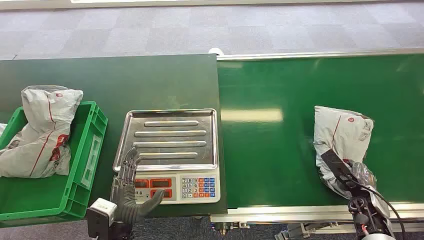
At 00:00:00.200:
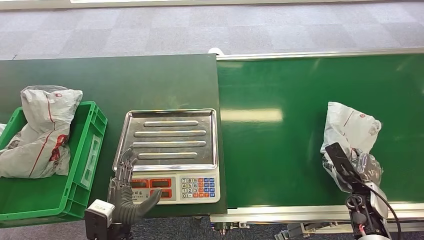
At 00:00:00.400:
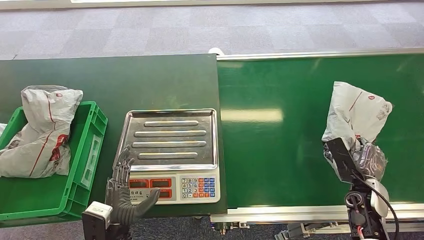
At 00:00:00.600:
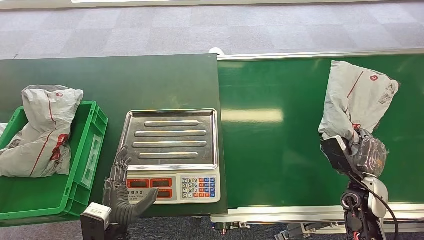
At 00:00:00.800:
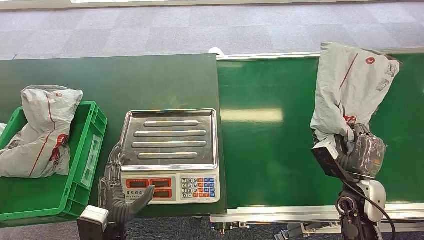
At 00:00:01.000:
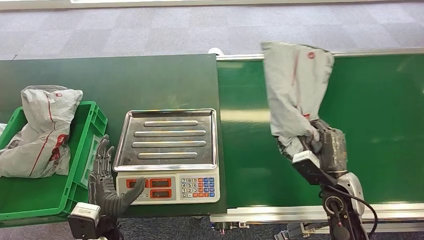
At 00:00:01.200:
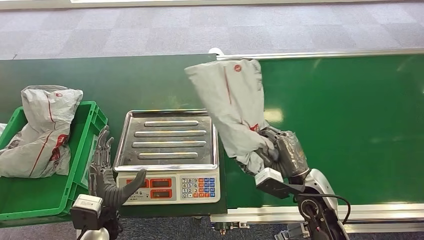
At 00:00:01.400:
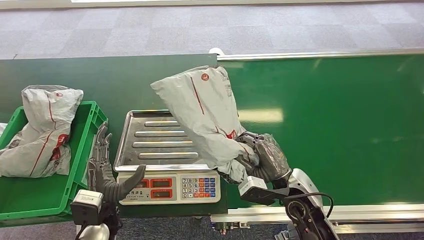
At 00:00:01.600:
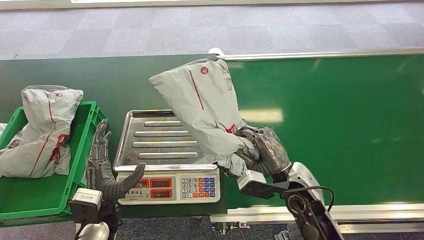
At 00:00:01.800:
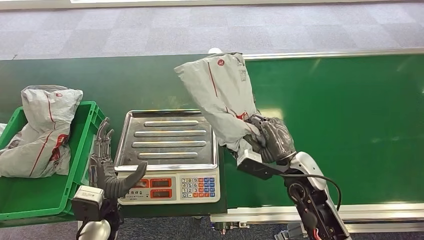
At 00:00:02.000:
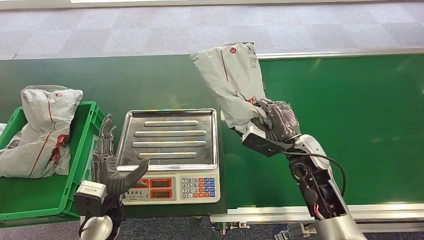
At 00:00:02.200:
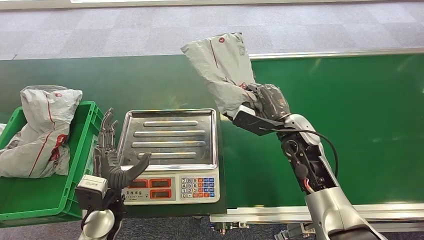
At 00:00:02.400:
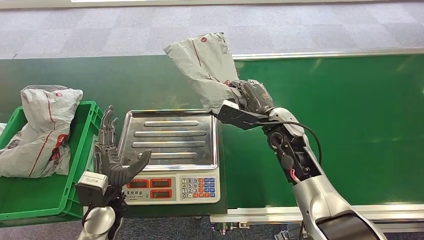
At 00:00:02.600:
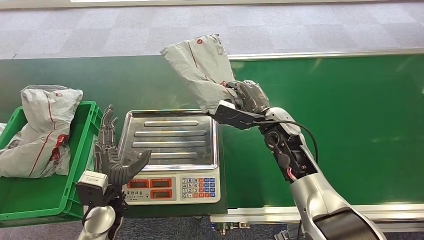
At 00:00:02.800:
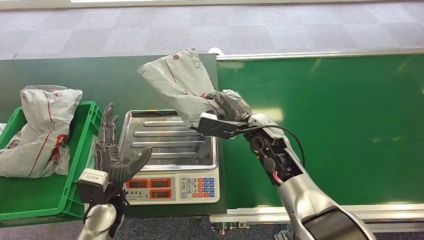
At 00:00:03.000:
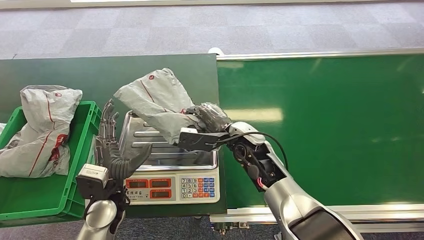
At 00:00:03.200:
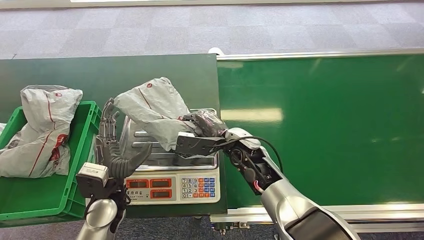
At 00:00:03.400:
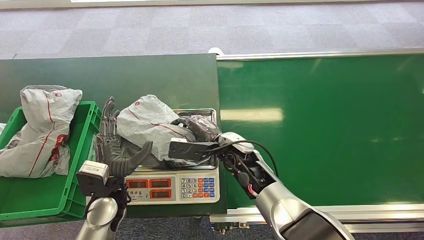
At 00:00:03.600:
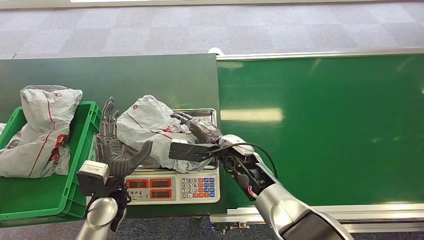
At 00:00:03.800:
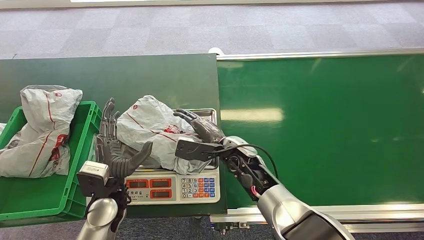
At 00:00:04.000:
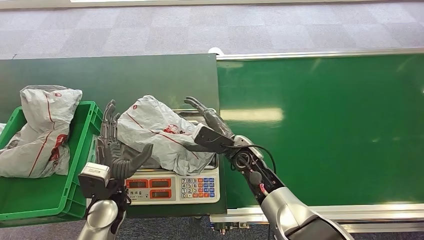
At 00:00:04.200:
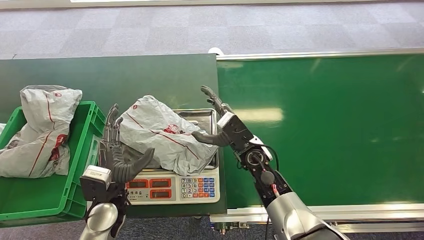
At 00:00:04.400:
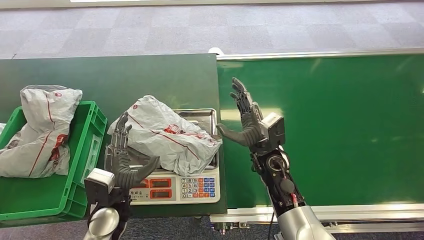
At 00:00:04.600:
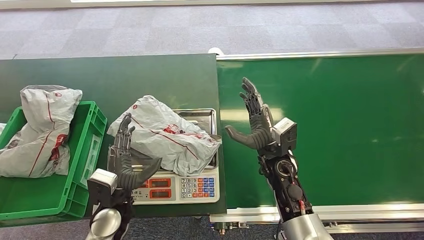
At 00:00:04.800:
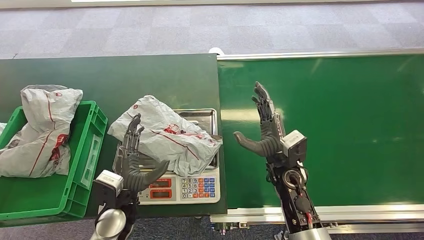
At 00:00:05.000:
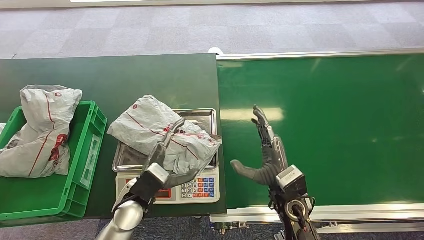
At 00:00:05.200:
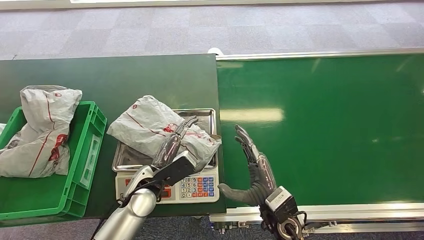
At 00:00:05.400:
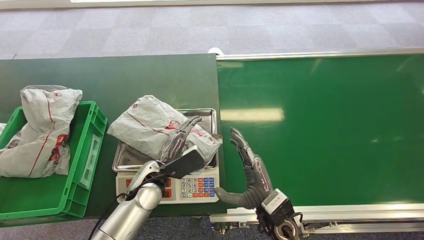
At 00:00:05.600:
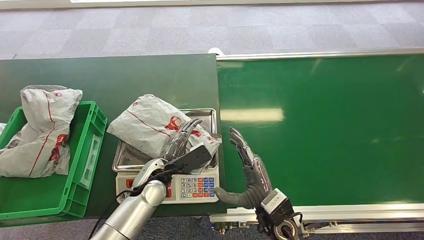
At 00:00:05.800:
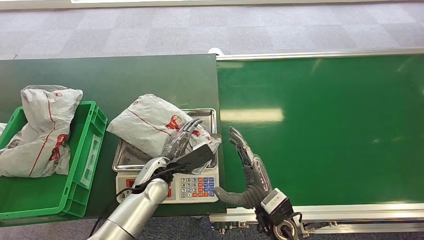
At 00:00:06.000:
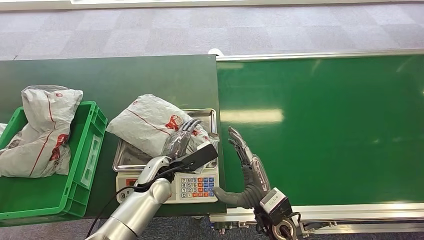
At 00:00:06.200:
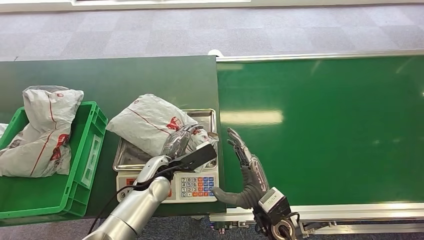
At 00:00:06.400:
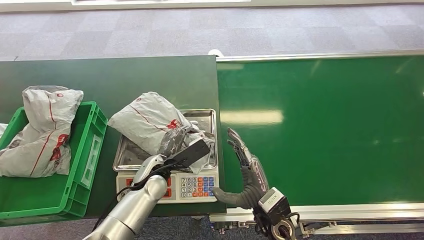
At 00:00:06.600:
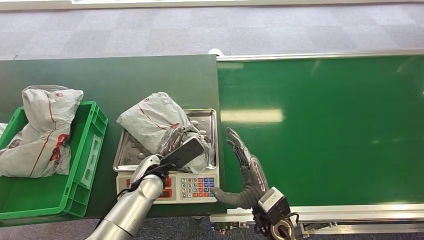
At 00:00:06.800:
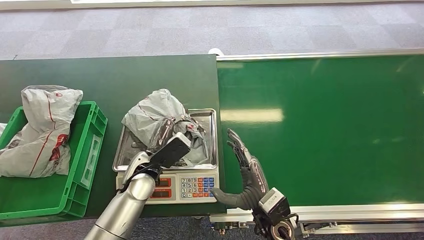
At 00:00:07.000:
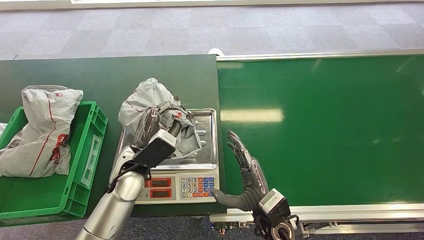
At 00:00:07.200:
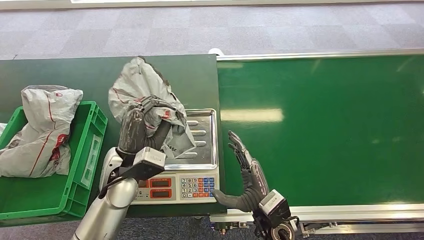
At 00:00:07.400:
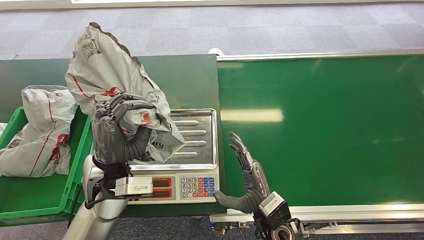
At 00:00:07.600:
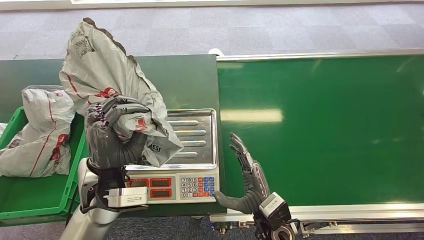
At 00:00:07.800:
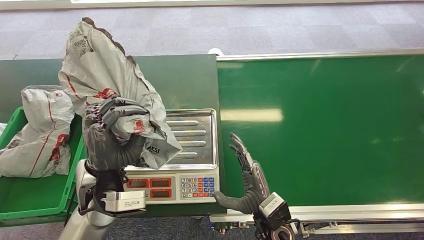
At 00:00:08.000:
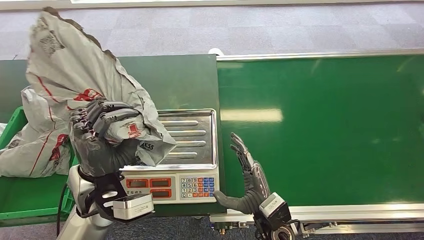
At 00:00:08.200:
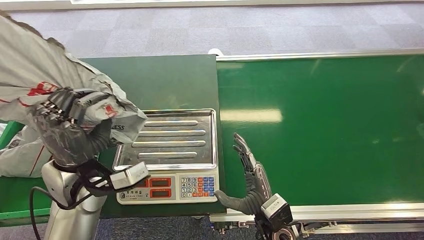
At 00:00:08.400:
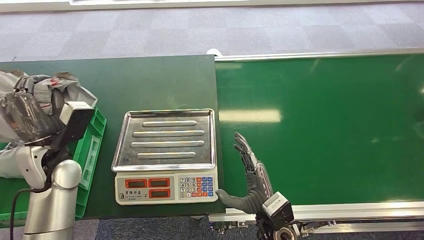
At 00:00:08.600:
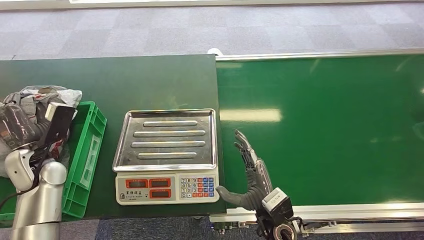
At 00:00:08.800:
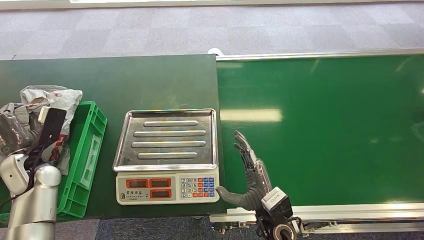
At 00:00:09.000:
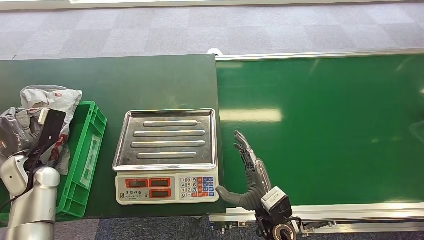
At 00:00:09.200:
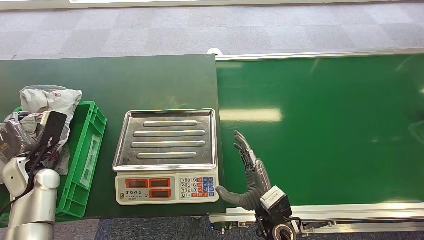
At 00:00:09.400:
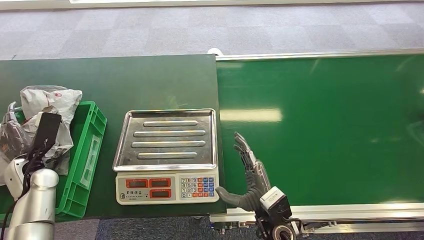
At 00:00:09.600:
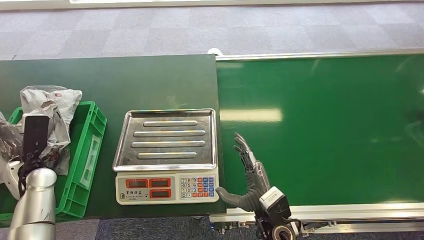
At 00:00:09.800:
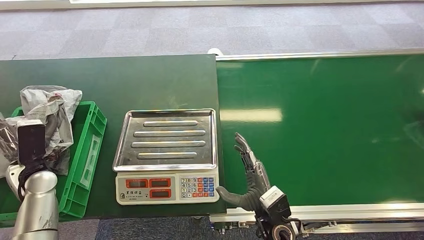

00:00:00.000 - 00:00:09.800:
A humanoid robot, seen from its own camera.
Task of the whole recording: Weigh the package on the weighing device and place it in the left basket.
Step, 00:00:00.000 - 00:00:00.800: Pick up the package from the conveyor belt.
Step, 00:00:03.000 - 00:00:03.800: Place the package onto the inbound machine.
Step, 00:00:06.800 - 00:00:07.600: Pick up the package from the inbound machine.
Step, 00:00:09.000 - 00:00:09.800: Place the package into the parcel locker.
00:00:01.400 - 00:00:02.800: The left hand ends up some 5 cm from where it was, while the right hand travels forward, to the left and upward by about 15 cm.
00:00:02.800 - 00:00:04.200: The right hand is displaced downward by about 5 cm.
00:00:04.200 - 00:00:05.600: The left hand moves to the right and forward, roughly 10 cm, while the right hand shifts about 15 cm backward.
00:00:05.600 - 00:00:07.000: The left hand shifts roughly 5 cm upward.
00:00:08.400 - 00:00:09.800: The left hand travels to the left and downward by approximately 15 cm.
